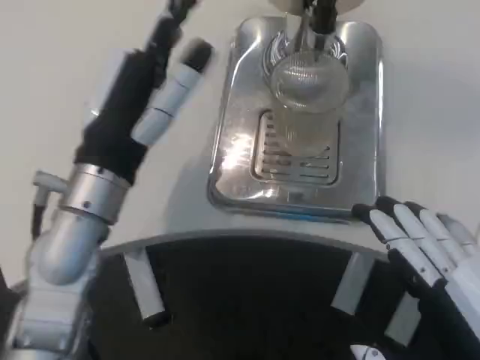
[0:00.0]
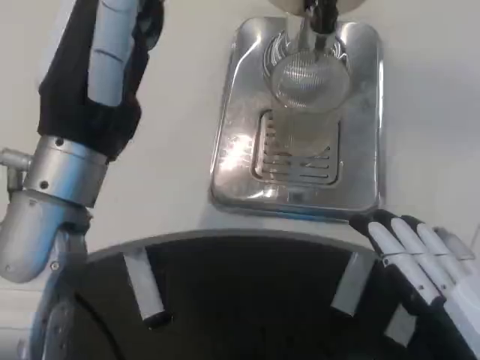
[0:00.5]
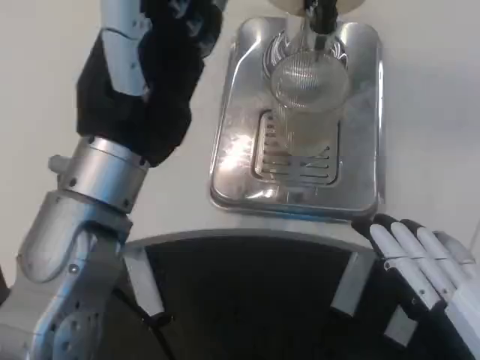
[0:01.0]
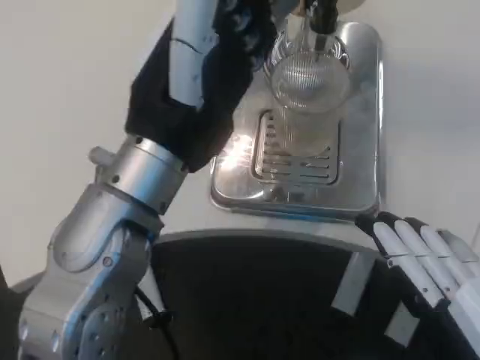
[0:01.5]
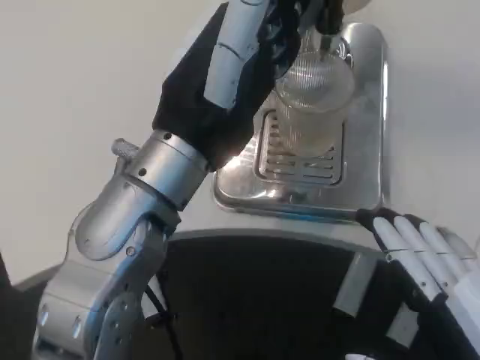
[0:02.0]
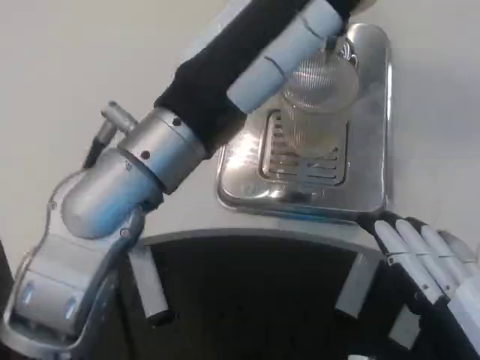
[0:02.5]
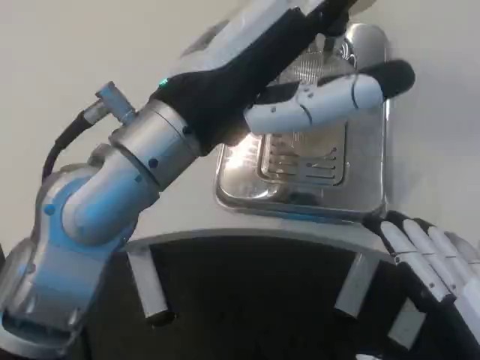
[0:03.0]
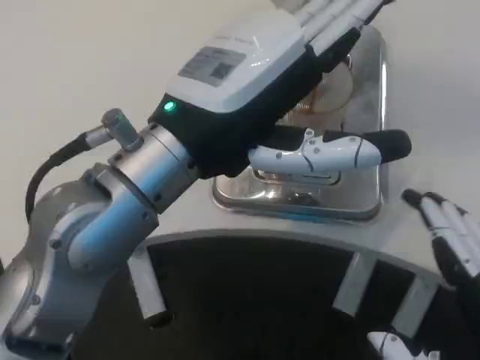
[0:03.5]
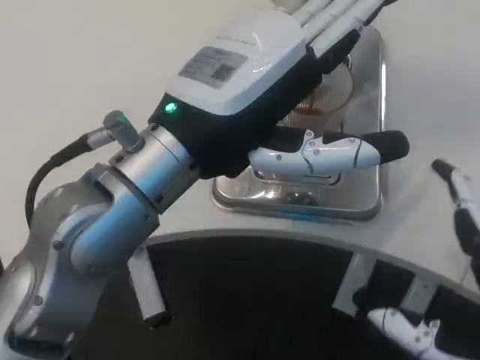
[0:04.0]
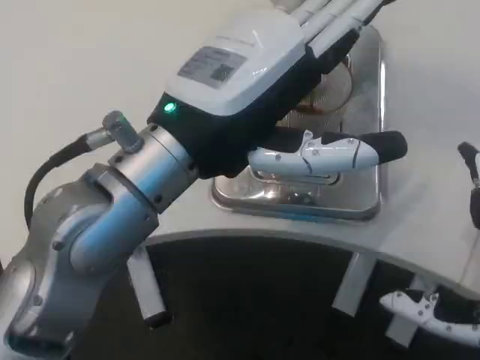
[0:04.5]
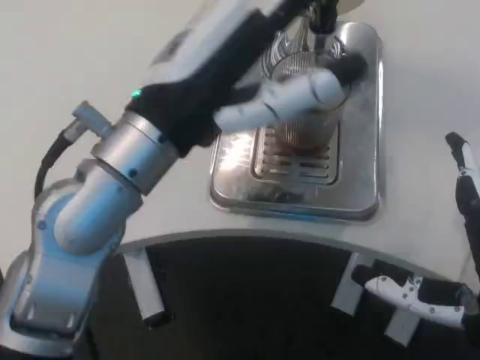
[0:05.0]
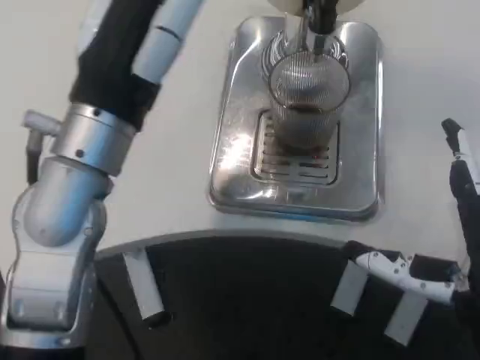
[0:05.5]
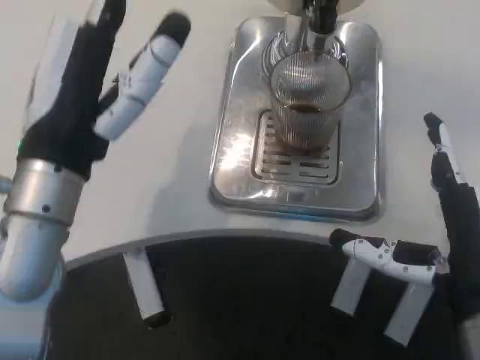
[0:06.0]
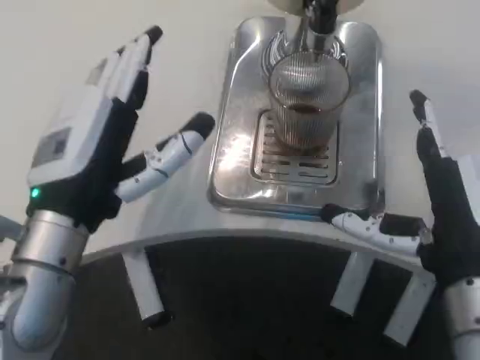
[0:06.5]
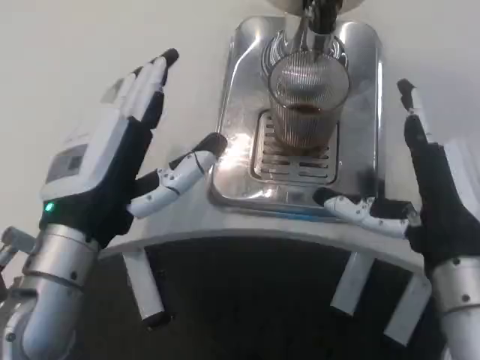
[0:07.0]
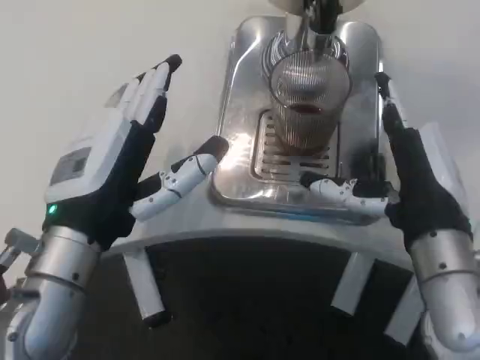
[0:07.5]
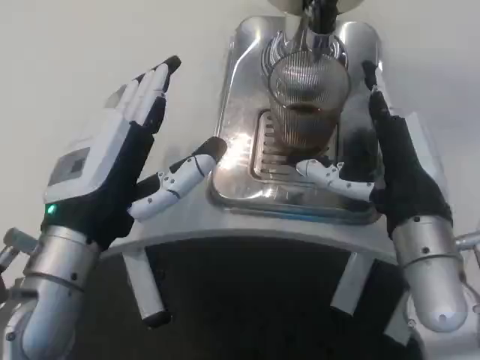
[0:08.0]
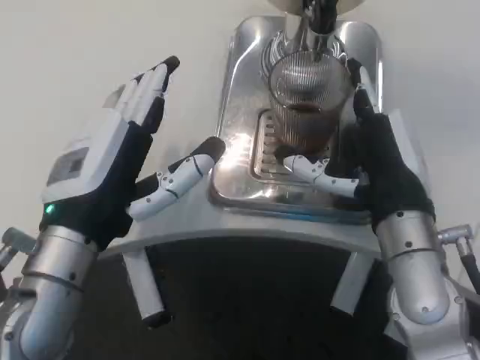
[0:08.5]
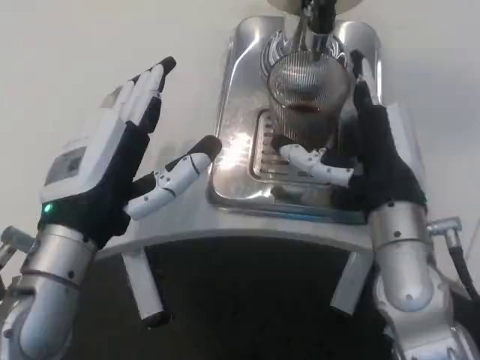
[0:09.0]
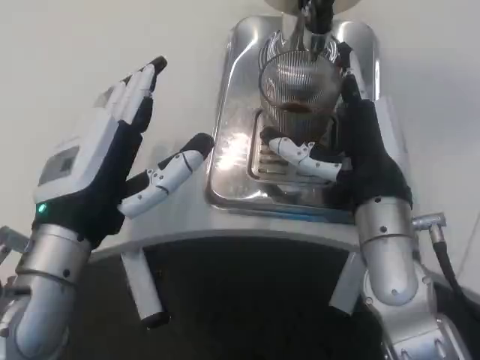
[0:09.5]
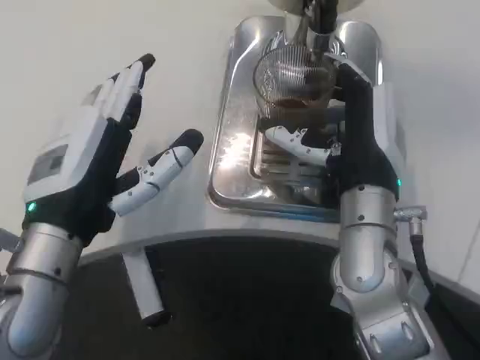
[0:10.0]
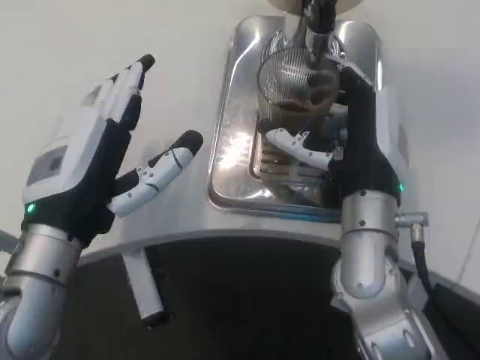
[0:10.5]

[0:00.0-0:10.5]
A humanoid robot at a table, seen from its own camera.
Task of the whole recording: Grasp the cup under the faucet to collect the drink, then remove the cup.
0:00.0 to 0:02.0: The left hand moves to the right and upward, about 10 cm.
0:04.0 to 0:06.5: The right hand is displaced forward by about 10 cm. Meanwhile the left hand is displaced downward and to the left by roughly 10 cm.
0:06.5 to 0:08.5: The right hand heads forward, covering approximately 5 cm.

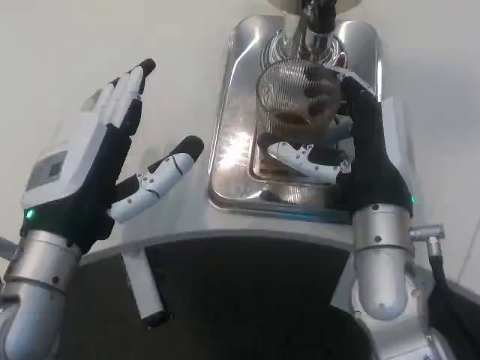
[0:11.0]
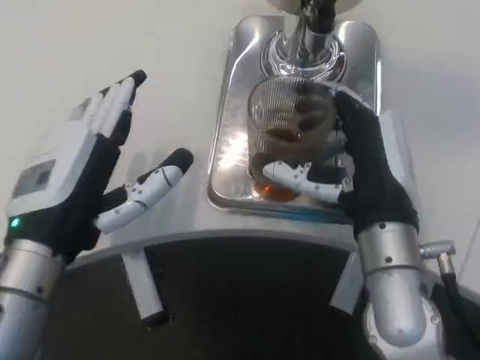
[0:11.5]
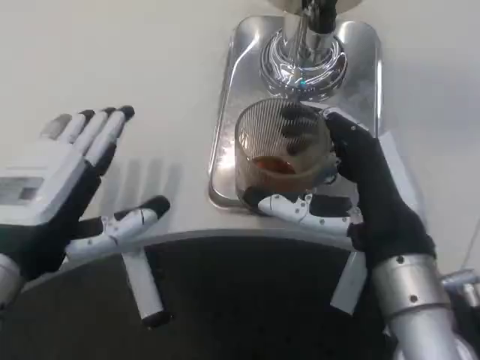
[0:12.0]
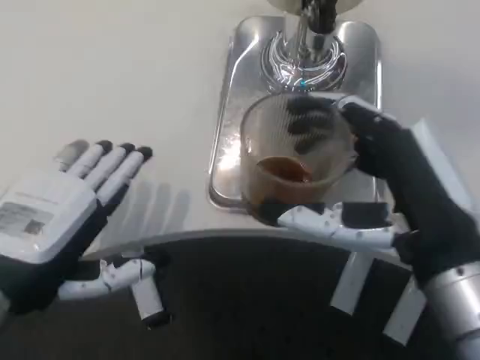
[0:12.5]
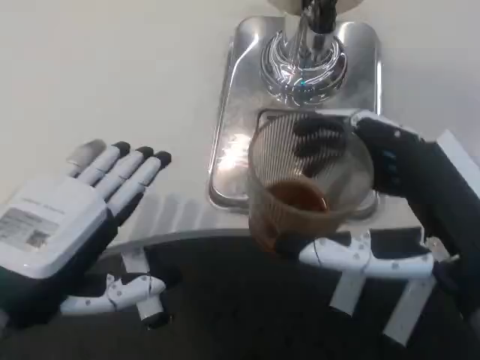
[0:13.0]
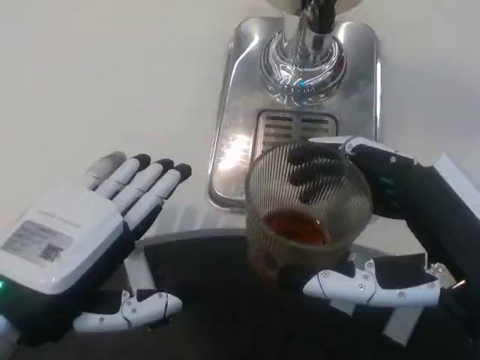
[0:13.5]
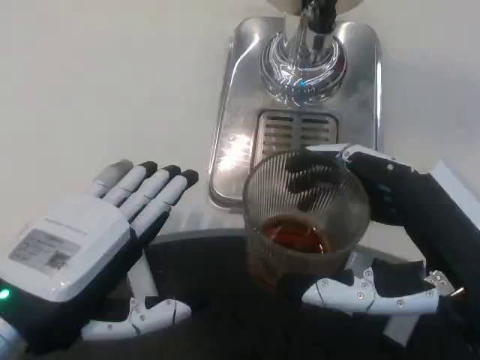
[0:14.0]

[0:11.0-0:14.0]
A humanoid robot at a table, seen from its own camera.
Task of the whole recording: Grasp the cup under the faucet to collect the drink, then remove the cup.
0:11.0 to 0:12.5: The left hand is displaced to the left by some 5 cm. Meanwhile the right hand travels backward and to the right by approximately 10 cm.

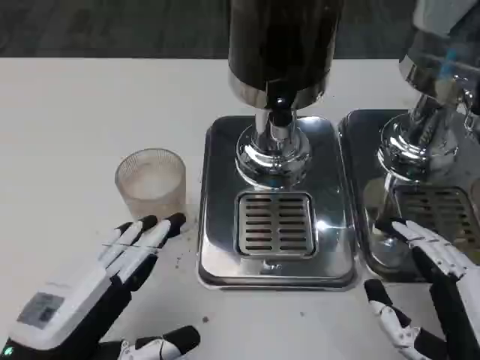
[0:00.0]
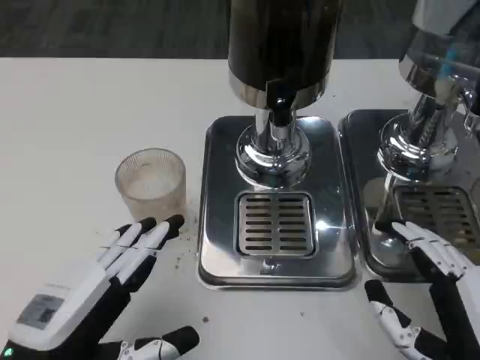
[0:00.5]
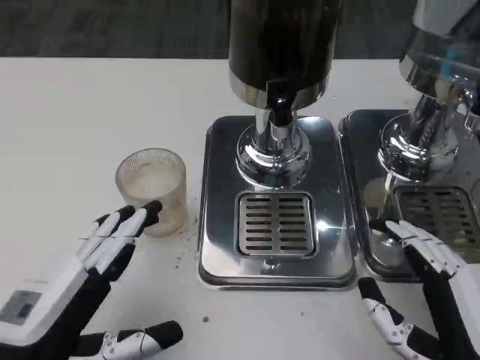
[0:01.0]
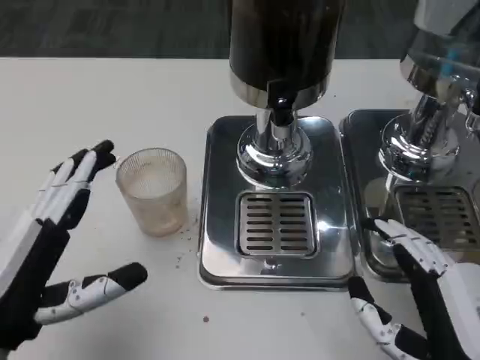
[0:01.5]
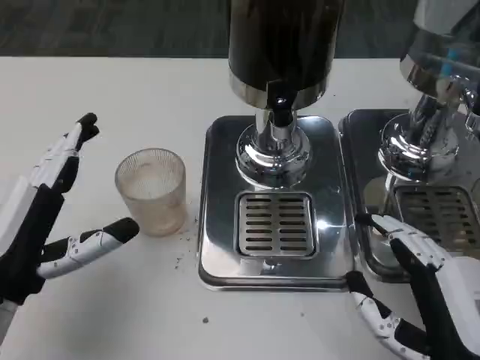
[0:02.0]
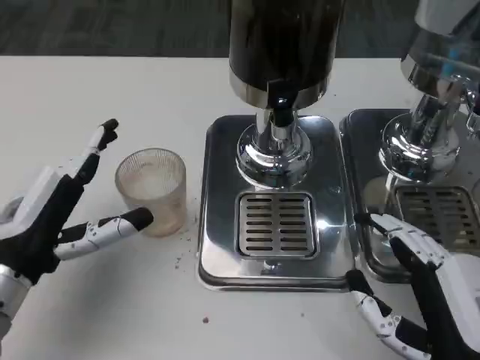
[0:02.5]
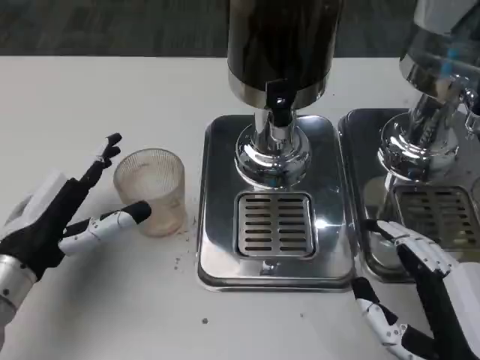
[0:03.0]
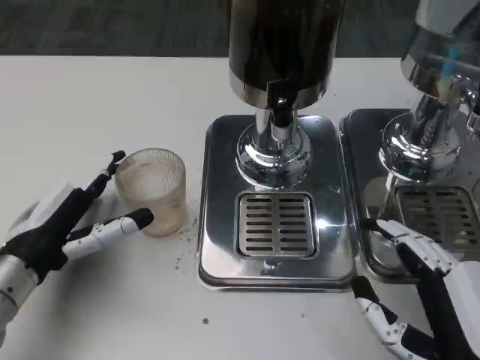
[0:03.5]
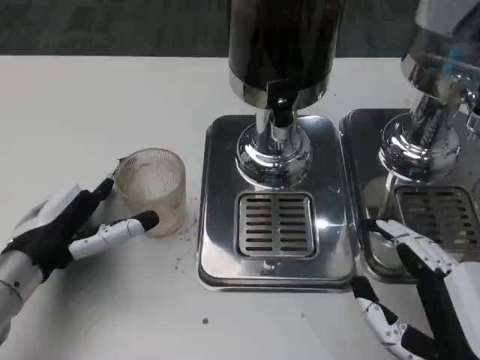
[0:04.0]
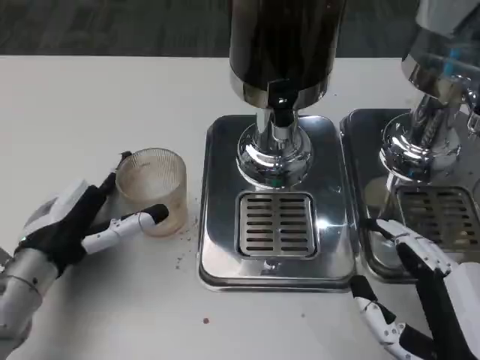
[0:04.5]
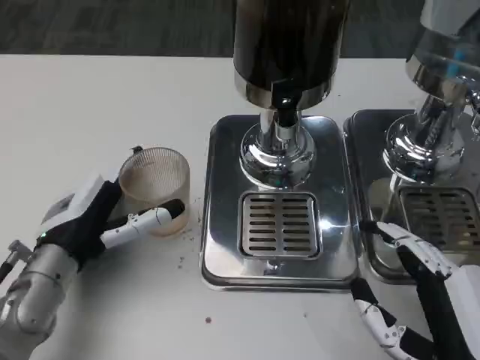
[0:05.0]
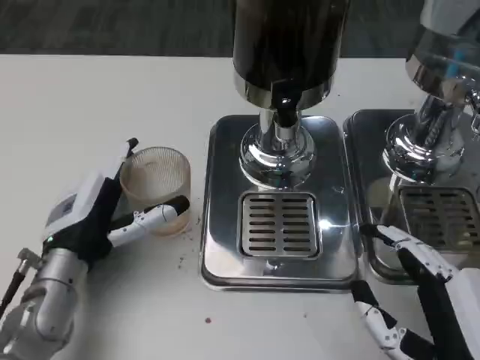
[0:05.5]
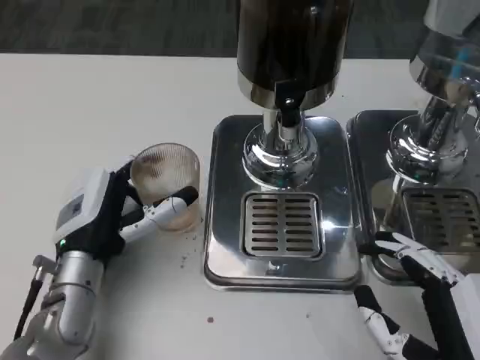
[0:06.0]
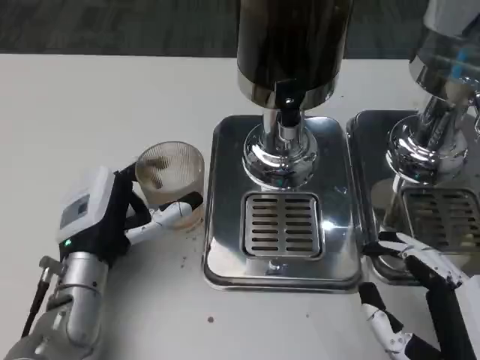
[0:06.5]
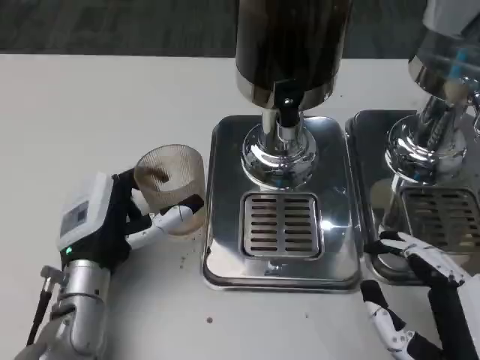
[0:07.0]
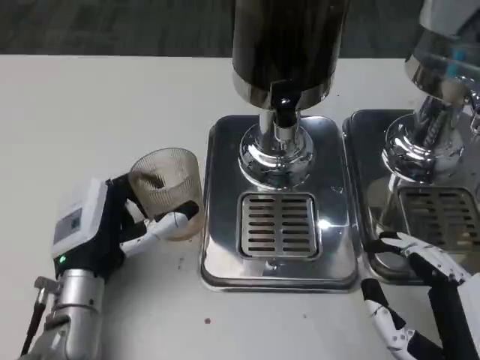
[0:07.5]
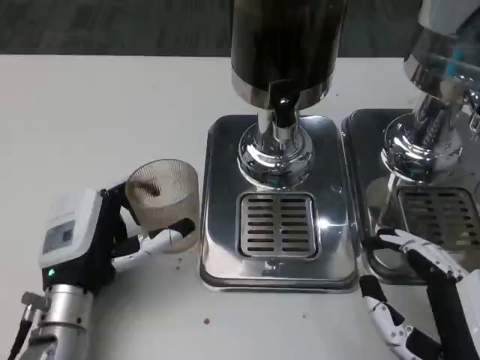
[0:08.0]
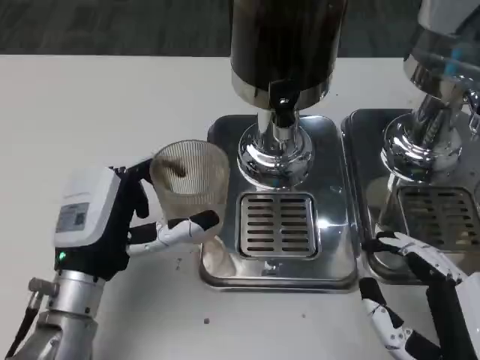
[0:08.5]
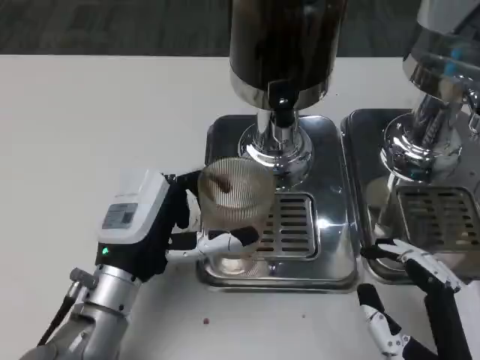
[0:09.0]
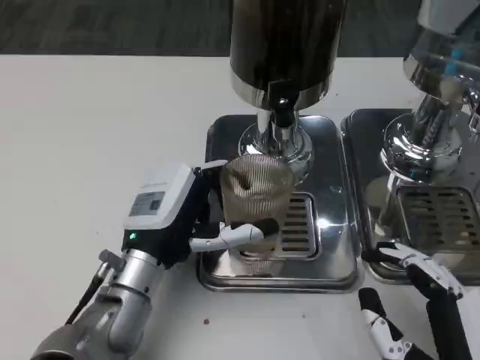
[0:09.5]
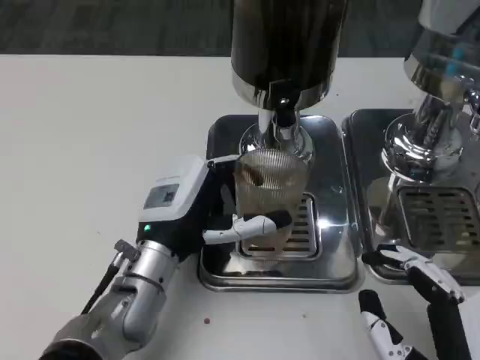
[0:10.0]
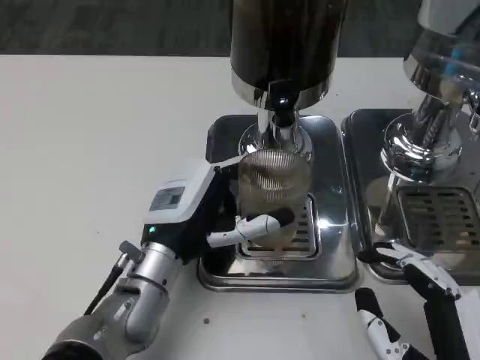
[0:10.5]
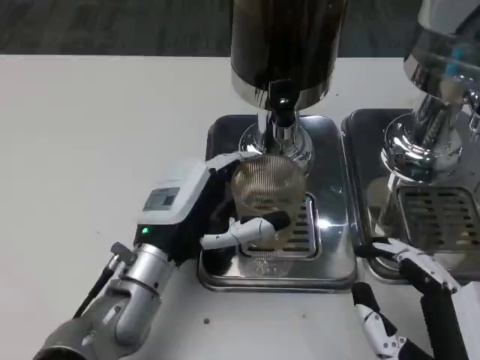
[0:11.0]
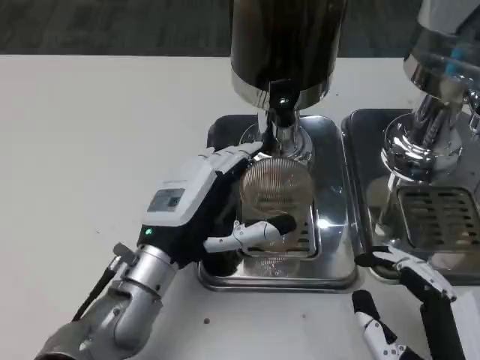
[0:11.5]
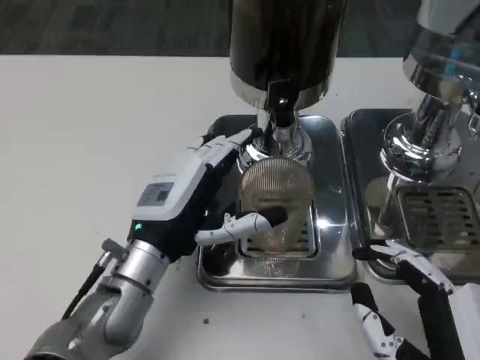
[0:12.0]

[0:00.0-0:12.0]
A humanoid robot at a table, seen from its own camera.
Task of the whole recording: Grasp the cup under the faucet to collect the drink, then remove the cup.
0:00.0 to 0:02.0: The left hand travels forward by approximately 5 cm.
0:02.0 to 0:04.0: The left hand goes approximately 5 cm forward.
0:04.0 to 0:06.0: The left hand moves to the right, about 5 cm.
0:08.0 to 0:10.0: The left hand travels to the right by approximately 5 cm.
0:10.0 to 0:12.0: There are only small adjustments of the hands.
